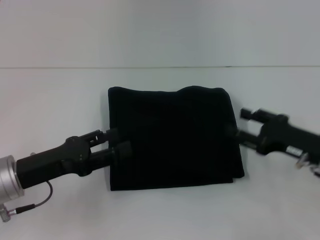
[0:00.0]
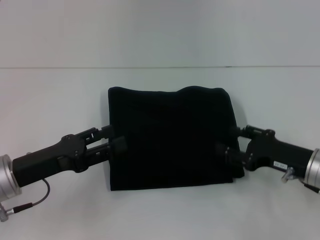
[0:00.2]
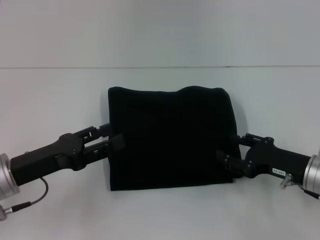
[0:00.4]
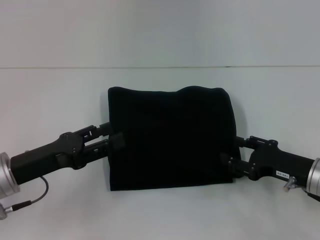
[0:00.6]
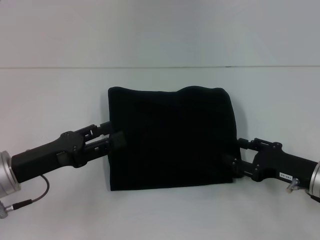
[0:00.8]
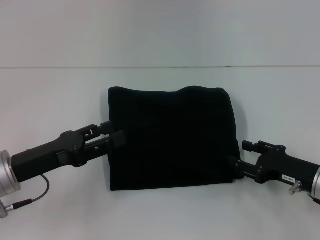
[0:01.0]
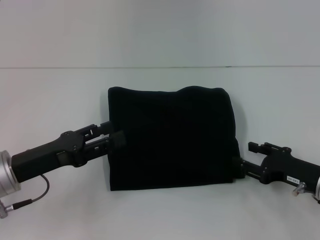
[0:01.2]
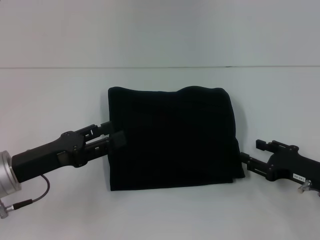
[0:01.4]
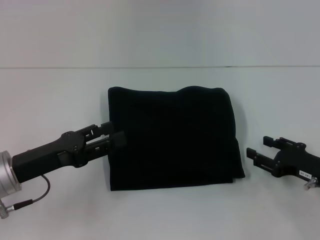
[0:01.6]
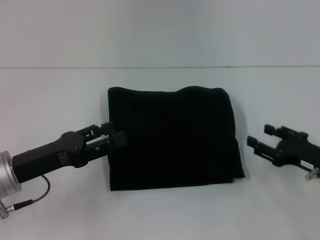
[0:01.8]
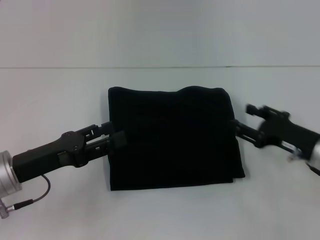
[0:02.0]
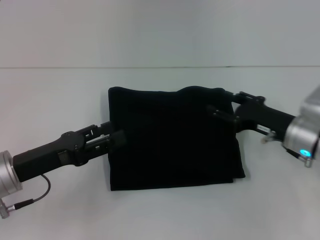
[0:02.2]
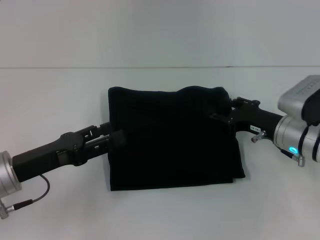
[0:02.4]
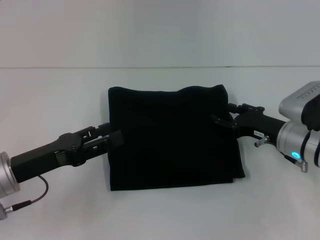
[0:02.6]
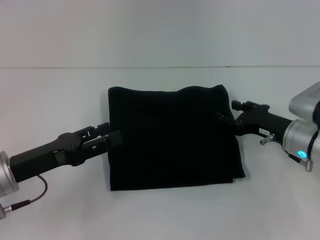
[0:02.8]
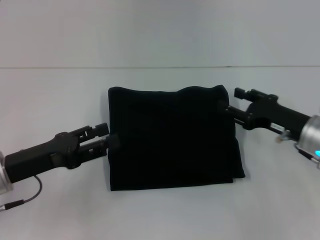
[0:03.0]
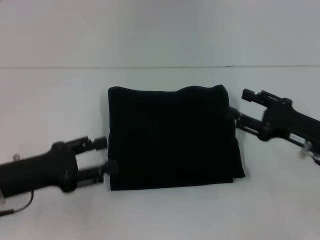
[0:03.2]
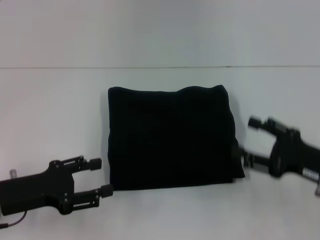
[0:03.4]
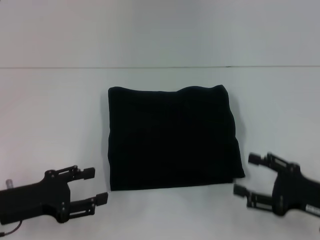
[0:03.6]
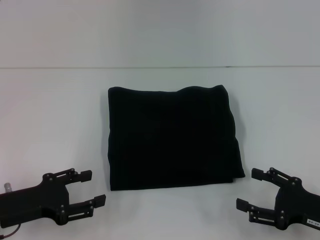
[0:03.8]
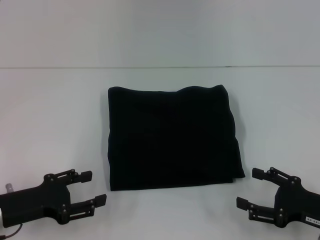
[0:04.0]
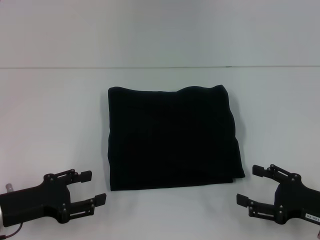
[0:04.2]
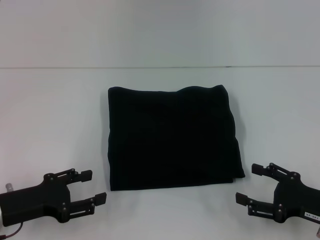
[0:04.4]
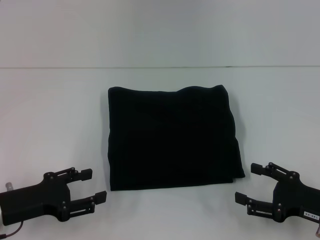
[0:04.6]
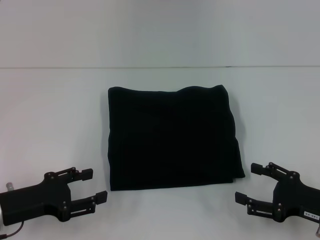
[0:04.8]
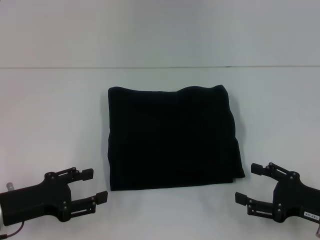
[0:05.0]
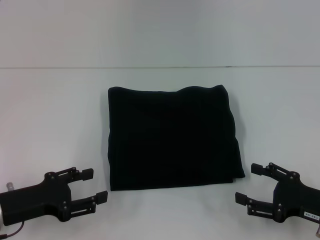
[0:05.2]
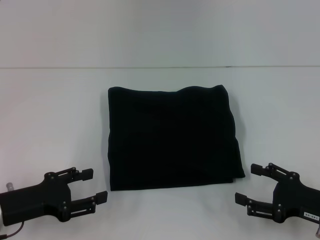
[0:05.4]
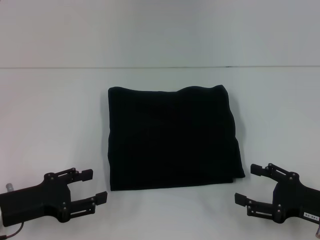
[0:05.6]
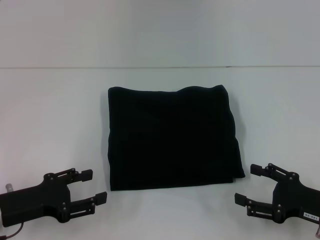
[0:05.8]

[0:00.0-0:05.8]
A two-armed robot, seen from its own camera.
0:00.0 to 0:01.4: The right gripper changes place by roughly 5 cm.
0:01.4 to 0:02.8: The right gripper travels forward and to the left by some 10 cm.
0:02.8 to 0:04.4: The left gripper shifts by about 5 cm. The right gripper goes roughly 15 cm backward and to the right.
0:04.4 to 0:05.8: Both grippers stay put.

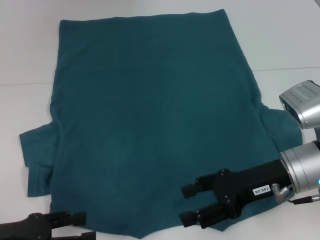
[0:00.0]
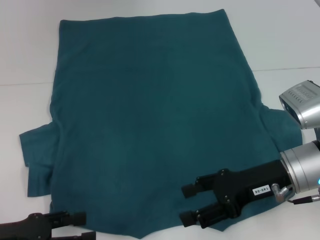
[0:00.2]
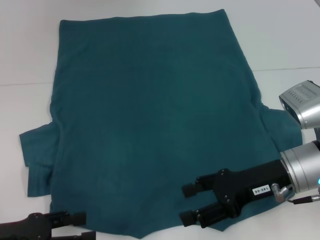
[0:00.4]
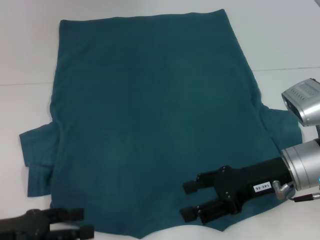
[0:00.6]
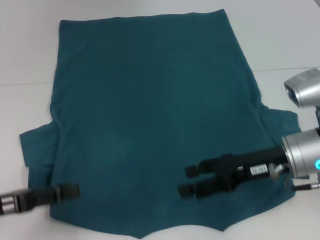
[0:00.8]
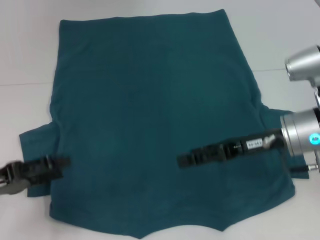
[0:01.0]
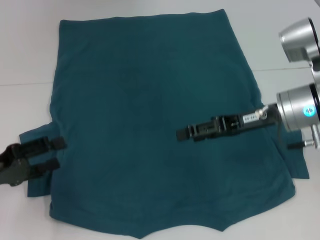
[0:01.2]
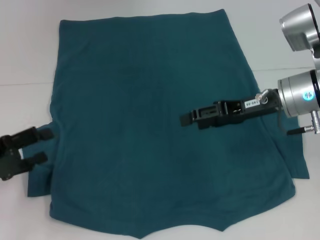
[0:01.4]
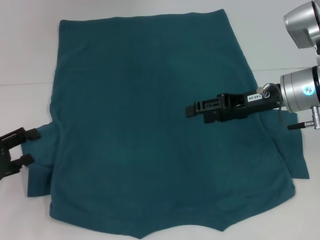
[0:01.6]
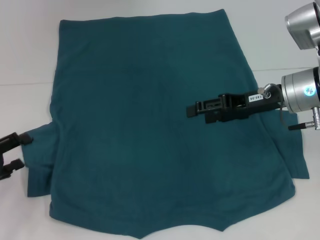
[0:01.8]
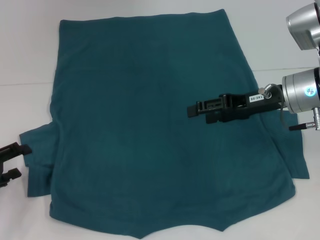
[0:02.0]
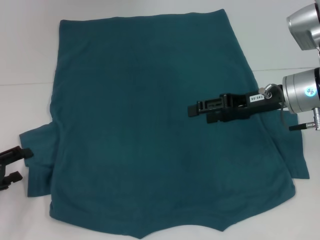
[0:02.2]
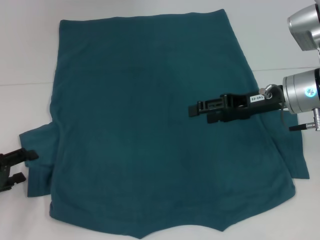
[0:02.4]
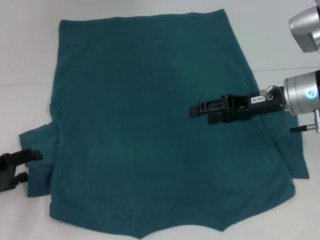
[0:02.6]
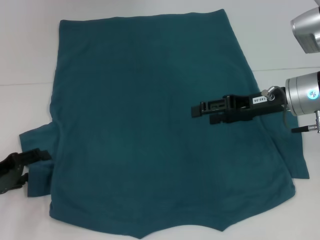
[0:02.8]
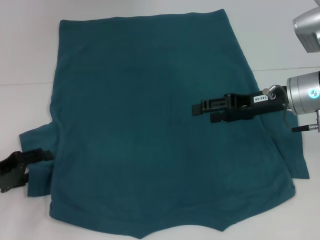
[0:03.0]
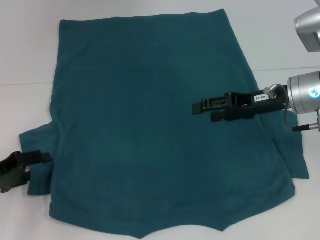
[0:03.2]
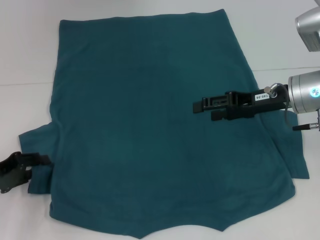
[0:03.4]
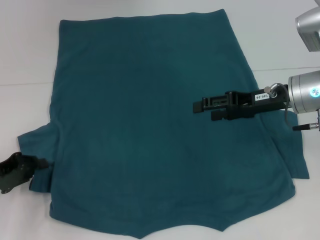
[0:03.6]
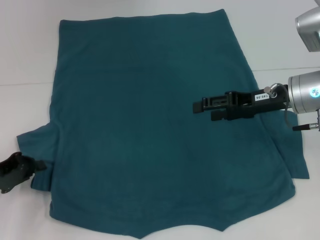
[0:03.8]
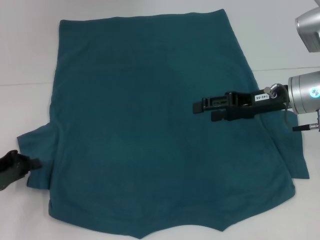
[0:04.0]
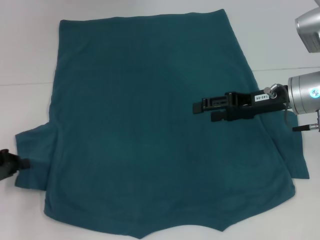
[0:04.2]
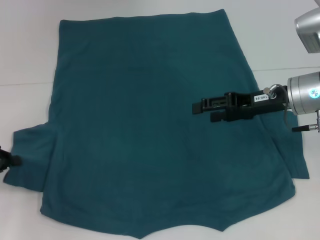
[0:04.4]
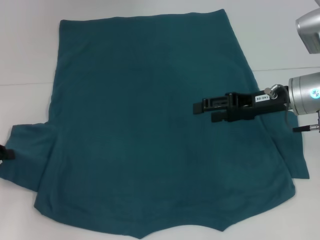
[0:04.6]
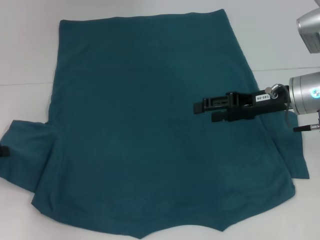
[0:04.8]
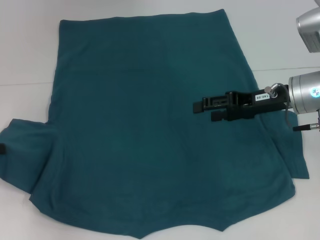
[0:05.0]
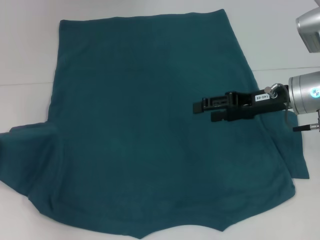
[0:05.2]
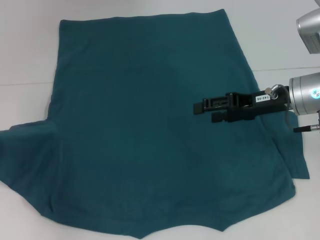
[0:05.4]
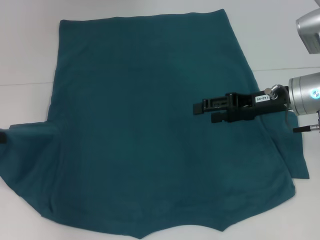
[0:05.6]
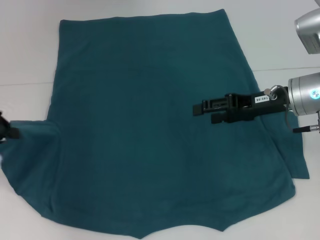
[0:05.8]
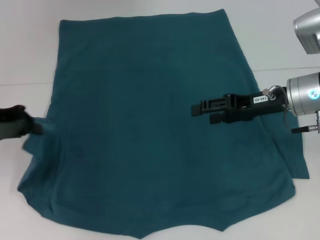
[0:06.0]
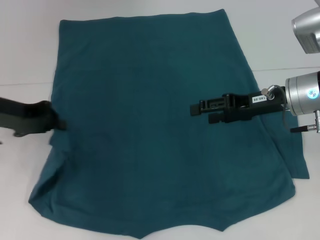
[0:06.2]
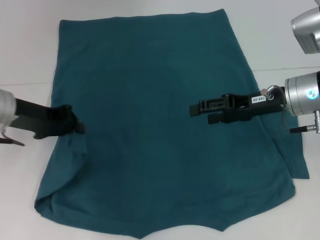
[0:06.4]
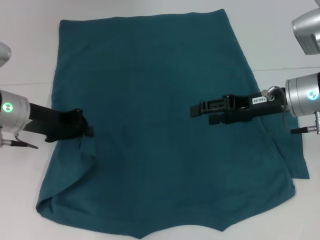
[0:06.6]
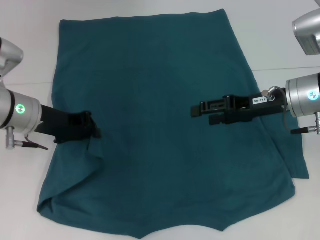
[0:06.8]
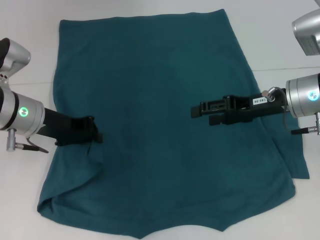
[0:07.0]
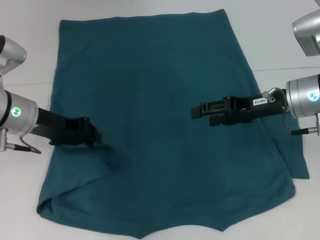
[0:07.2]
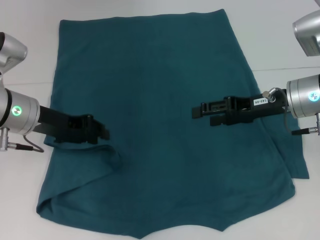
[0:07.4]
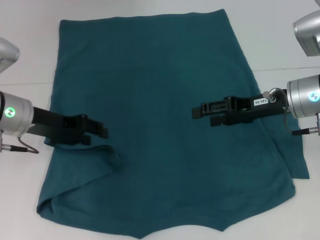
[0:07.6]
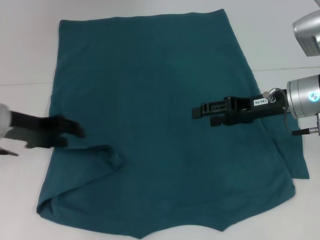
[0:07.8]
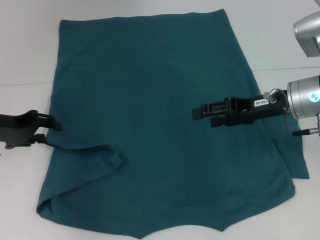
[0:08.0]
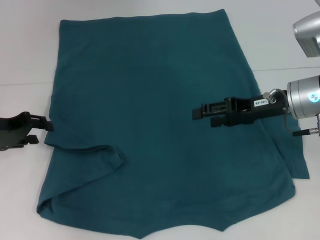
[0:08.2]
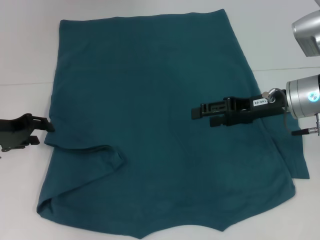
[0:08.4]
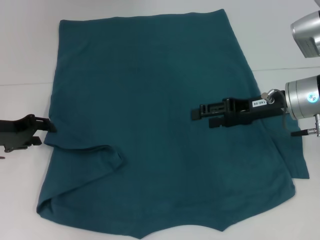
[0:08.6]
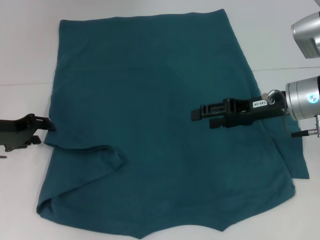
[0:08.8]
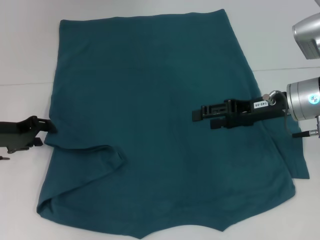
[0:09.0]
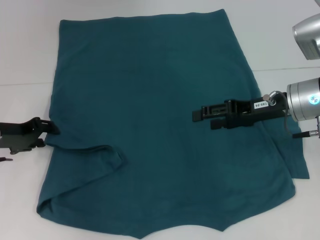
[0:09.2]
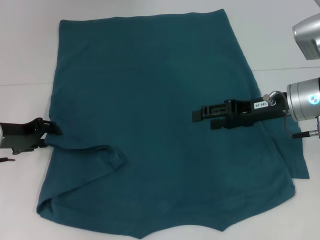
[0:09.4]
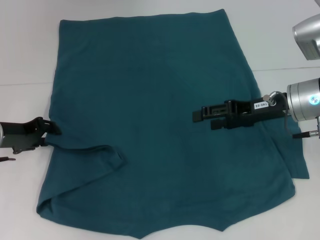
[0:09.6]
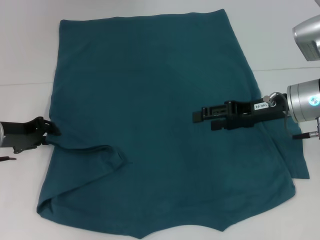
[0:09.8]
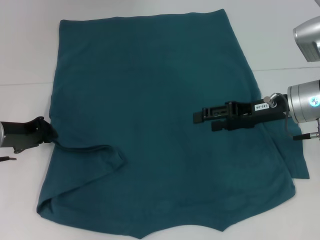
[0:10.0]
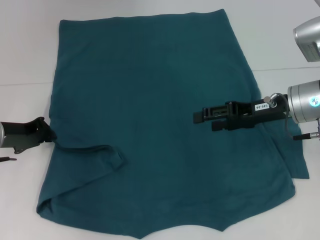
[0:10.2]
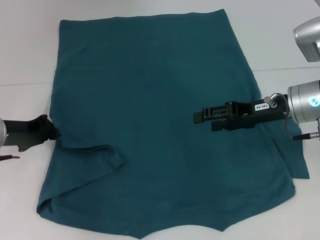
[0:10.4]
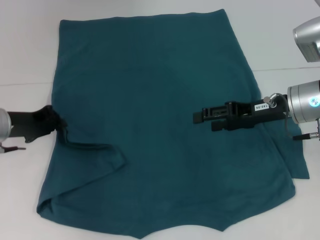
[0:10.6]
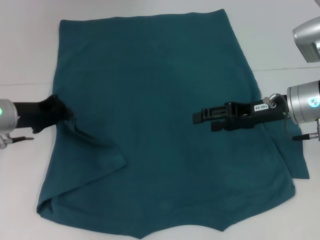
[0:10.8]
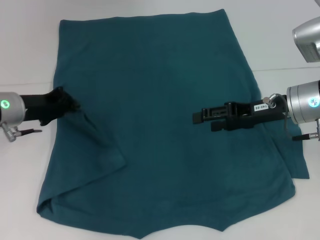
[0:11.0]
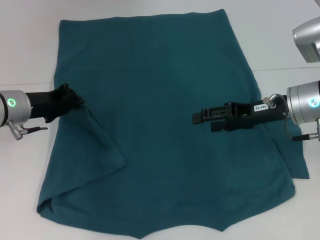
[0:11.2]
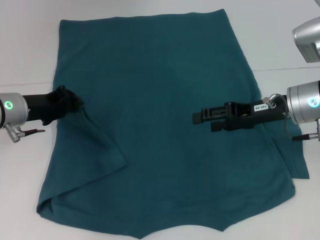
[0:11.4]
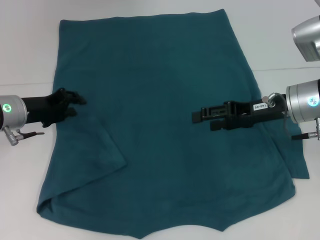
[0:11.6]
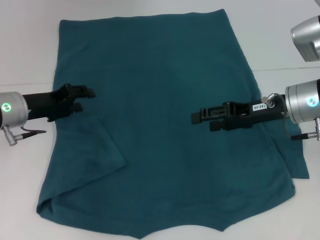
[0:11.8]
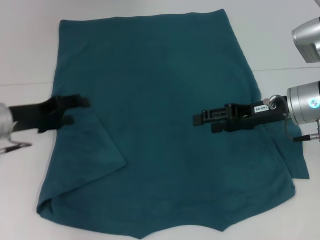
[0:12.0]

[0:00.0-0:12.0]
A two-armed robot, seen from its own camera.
Step, 0:00.0 to 0:11.8: Fold the bottom left sleeve with your left hand.
0:00.0 to 0:01.6: The left gripper shifts approximately 10 cm forward and to the left; the right gripper goes some 10 cm forward.
0:01.6 to 0:03.0: The grippers make only small movements.
0:03.0 to 0:04.4: The left gripper closes its fingers.
0:04.4 to 0:06.0: The left gripper heads upward and to the right, covering approximately 10 cm.
0:06.0 to 0:07.6: The left gripper is displaced to the right by roughly 10 cm, and opens.
0:07.6 to 0:09.0: The left gripper goes some 10 cm to the left and downward.
0:09.0 to 0:10.4: The left gripper closes.
0:10.4 to 0:12.0: The left gripper opens.

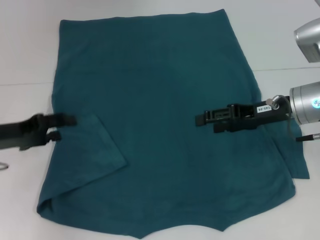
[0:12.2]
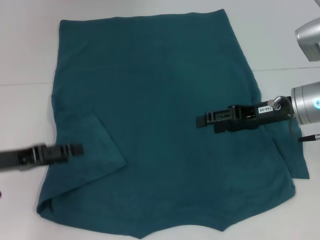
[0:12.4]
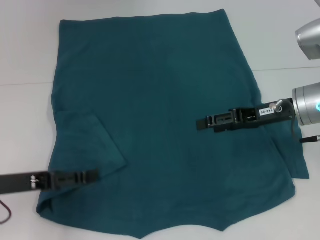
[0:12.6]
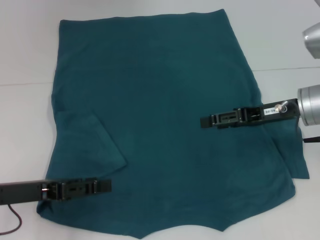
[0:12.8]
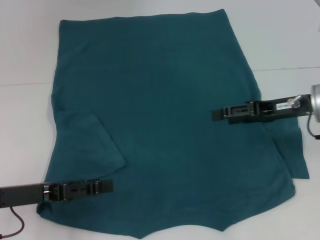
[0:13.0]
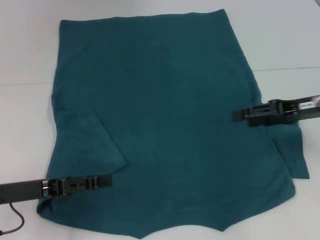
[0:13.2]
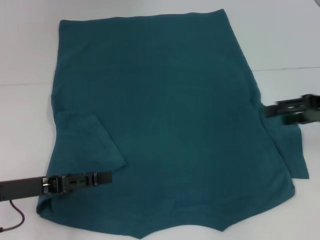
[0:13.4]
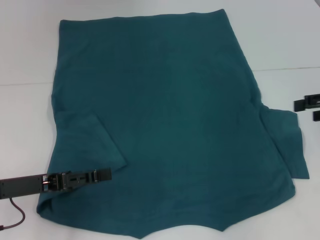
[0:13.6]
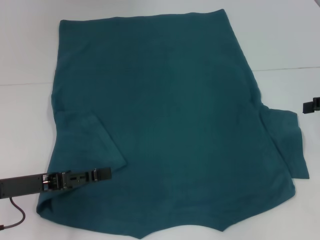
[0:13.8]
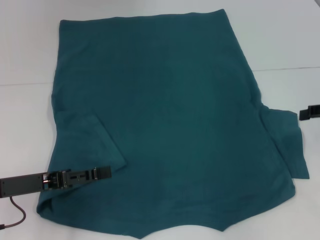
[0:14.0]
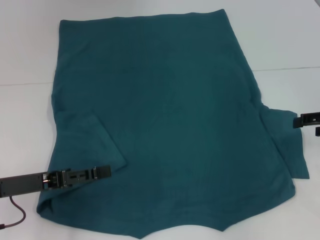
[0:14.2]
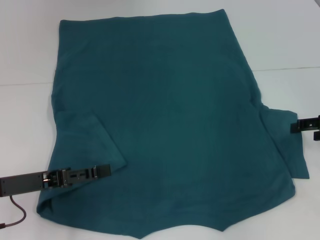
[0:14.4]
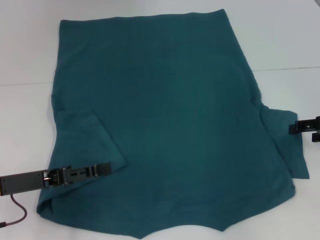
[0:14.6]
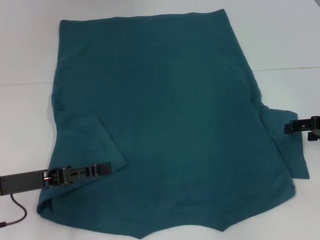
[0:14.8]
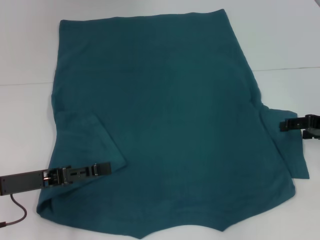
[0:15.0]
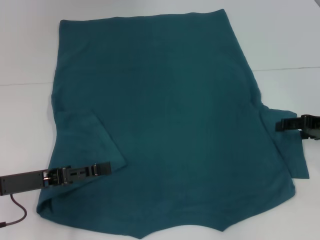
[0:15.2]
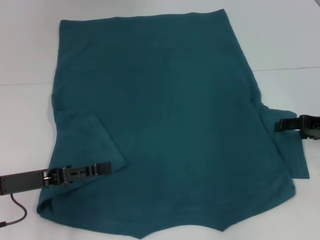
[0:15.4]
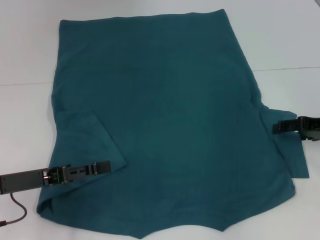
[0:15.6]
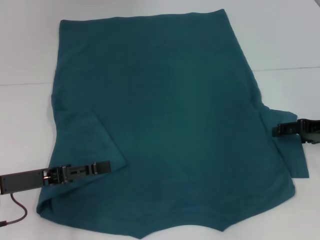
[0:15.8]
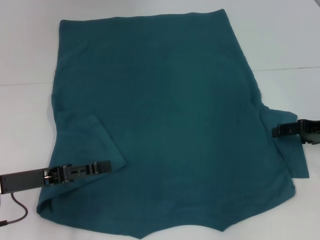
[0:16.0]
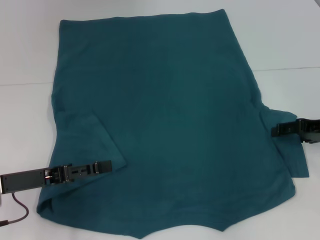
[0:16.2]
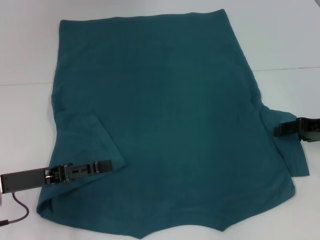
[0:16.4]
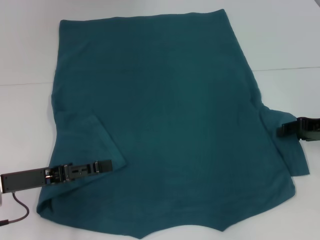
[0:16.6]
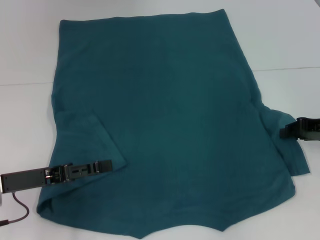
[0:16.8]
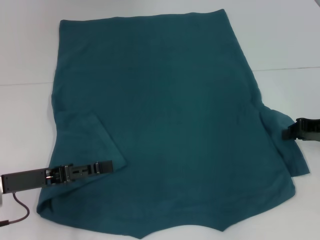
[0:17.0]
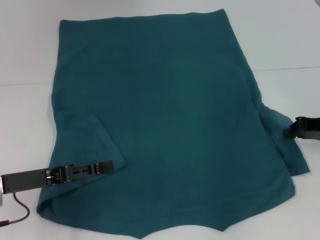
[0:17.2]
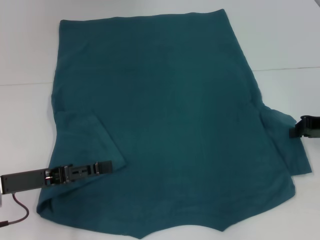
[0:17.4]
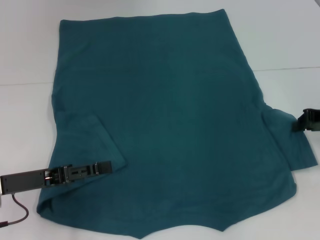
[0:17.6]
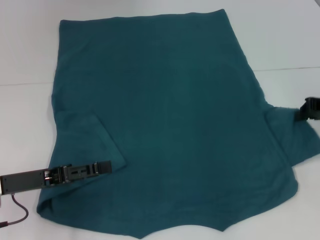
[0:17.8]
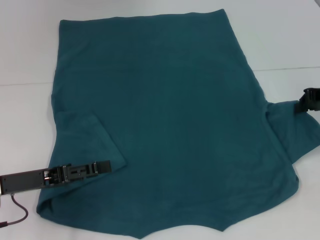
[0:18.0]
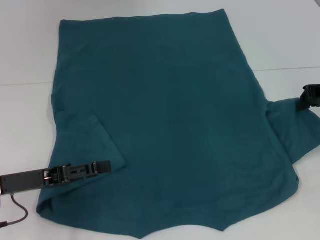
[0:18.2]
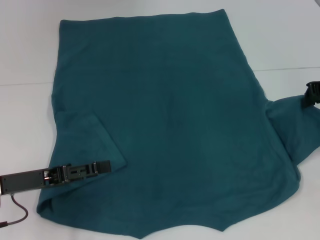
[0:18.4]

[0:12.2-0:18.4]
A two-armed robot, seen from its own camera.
0:12.2 to 0:13.8: The left gripper is displaced backward by roughly 5 cm, while the right gripper heads to the right, covering some 15 cm.
0:13.8 to 0:15.4: The right gripper travels downward by approximately 5 cm.
0:15.4 to 0:16.8: The right gripper closes.
0:16.8 to 0:18.4: The right gripper shifts roughly 10 cm upward, and closes.
